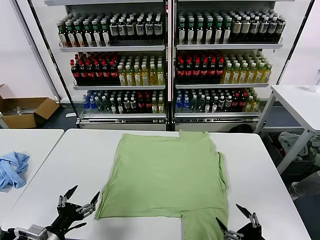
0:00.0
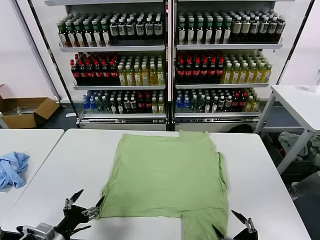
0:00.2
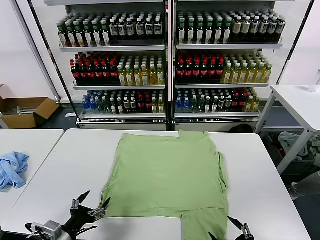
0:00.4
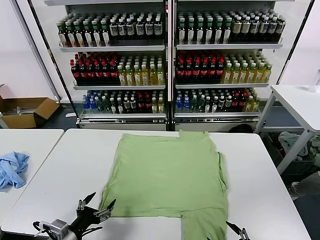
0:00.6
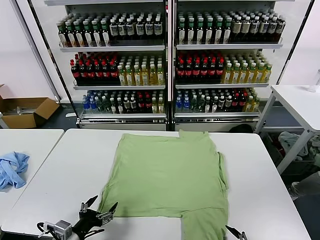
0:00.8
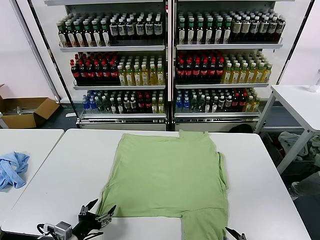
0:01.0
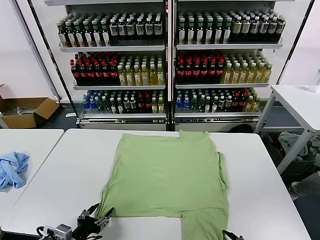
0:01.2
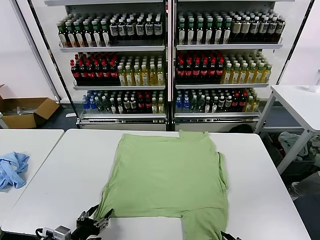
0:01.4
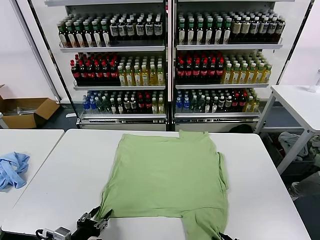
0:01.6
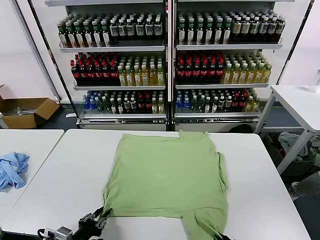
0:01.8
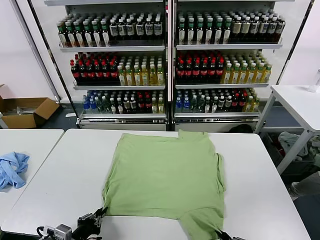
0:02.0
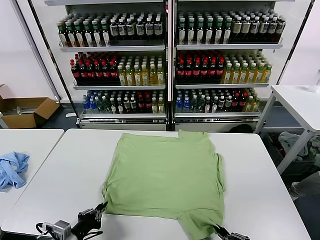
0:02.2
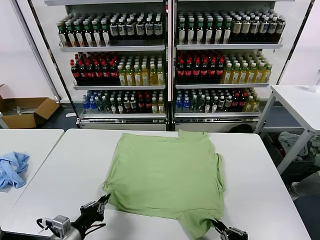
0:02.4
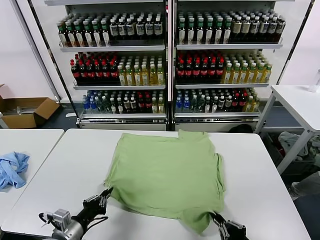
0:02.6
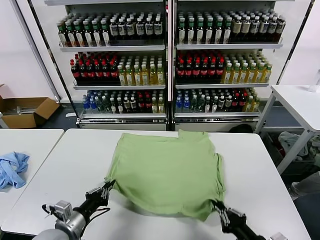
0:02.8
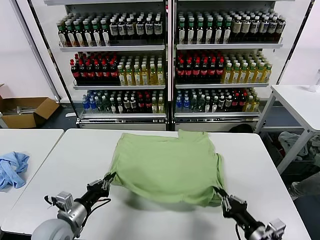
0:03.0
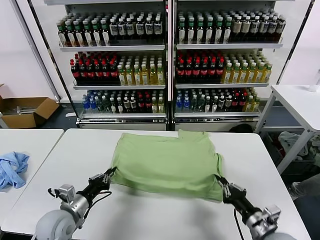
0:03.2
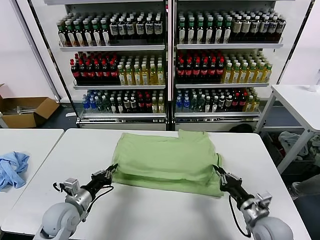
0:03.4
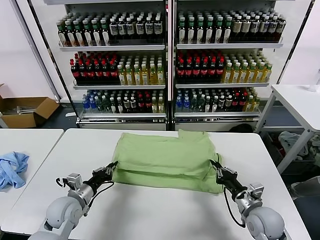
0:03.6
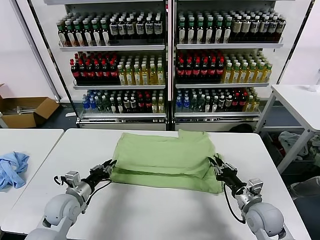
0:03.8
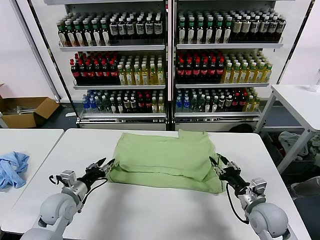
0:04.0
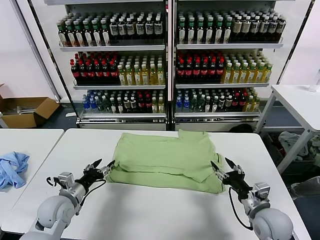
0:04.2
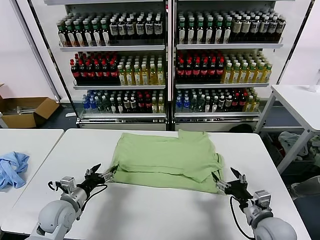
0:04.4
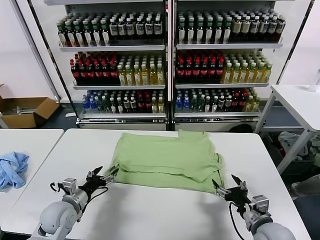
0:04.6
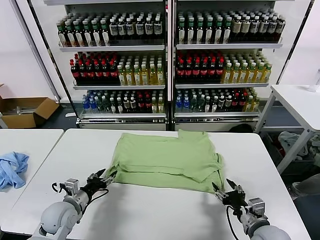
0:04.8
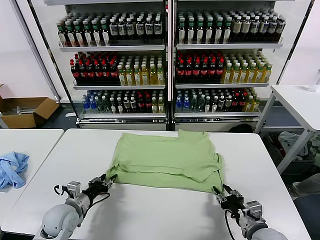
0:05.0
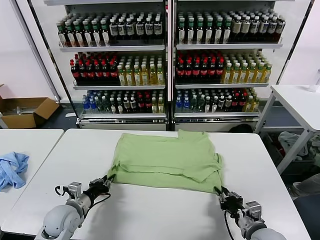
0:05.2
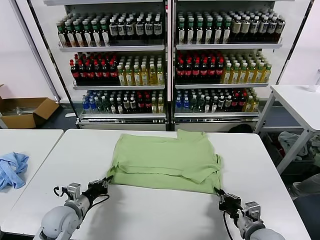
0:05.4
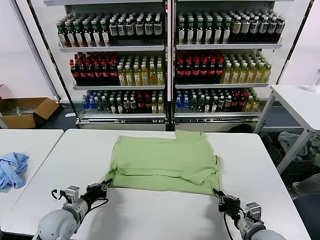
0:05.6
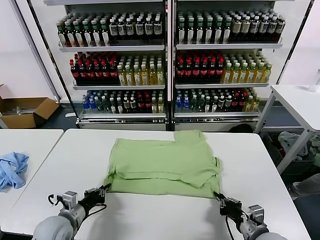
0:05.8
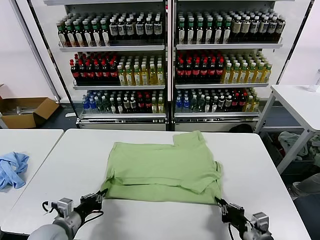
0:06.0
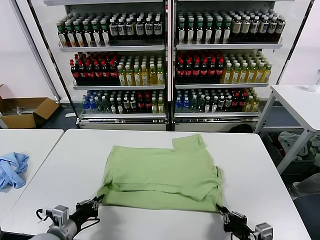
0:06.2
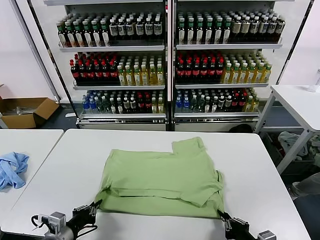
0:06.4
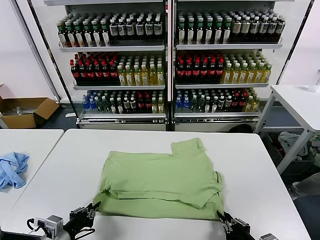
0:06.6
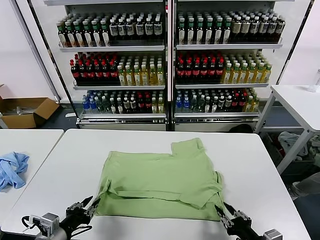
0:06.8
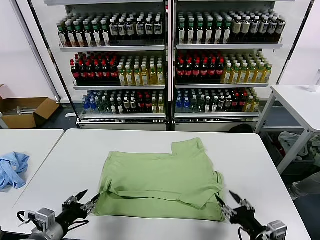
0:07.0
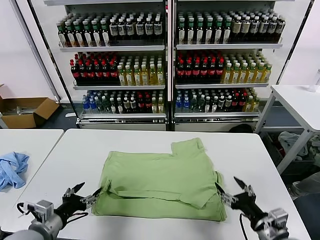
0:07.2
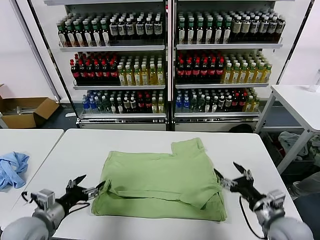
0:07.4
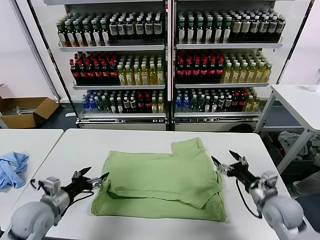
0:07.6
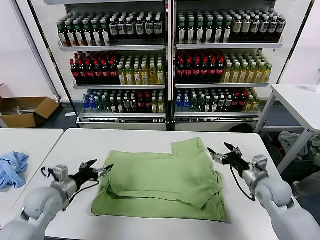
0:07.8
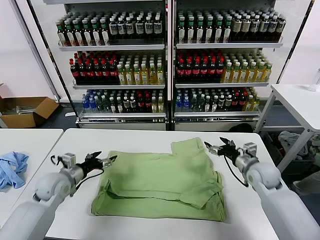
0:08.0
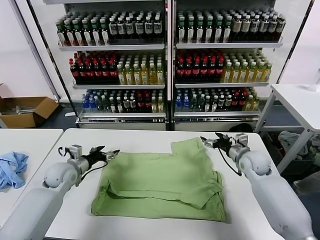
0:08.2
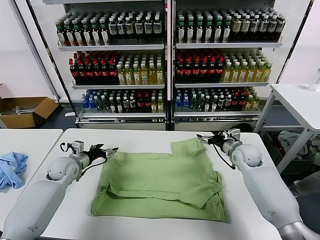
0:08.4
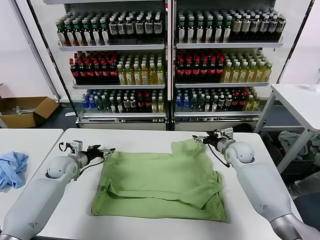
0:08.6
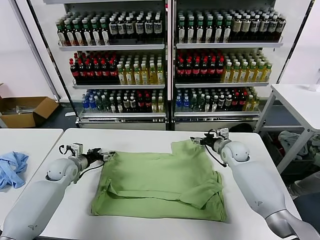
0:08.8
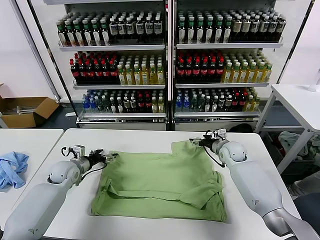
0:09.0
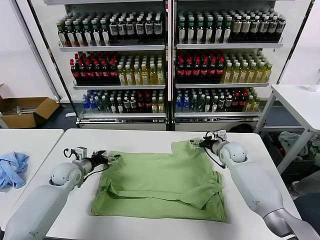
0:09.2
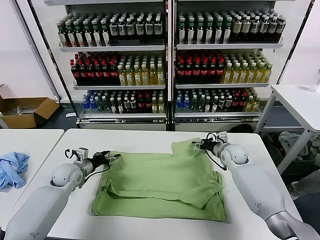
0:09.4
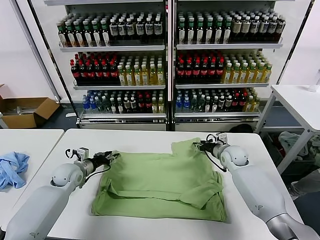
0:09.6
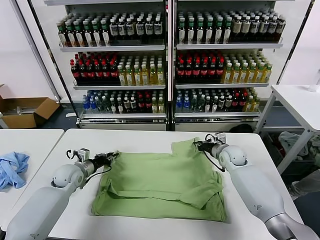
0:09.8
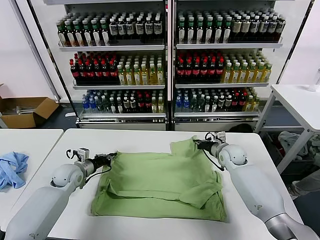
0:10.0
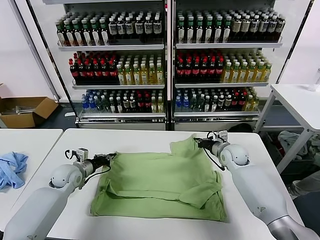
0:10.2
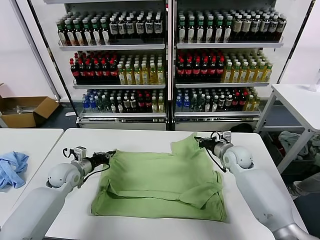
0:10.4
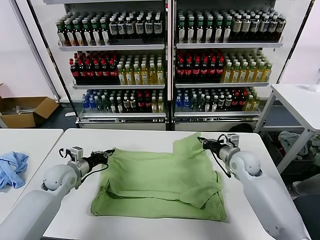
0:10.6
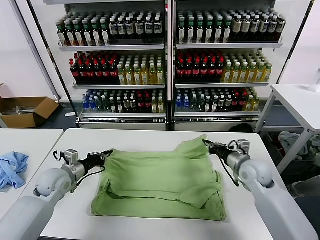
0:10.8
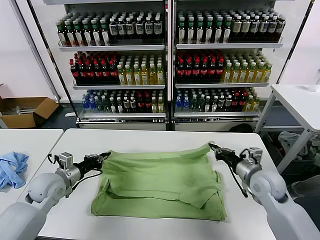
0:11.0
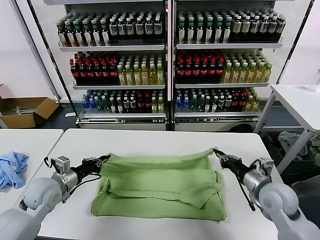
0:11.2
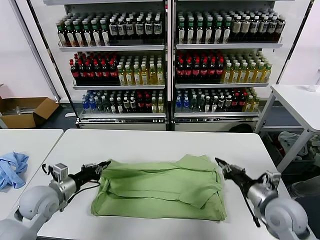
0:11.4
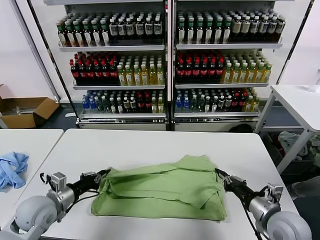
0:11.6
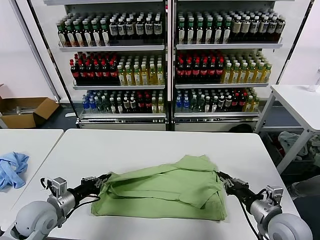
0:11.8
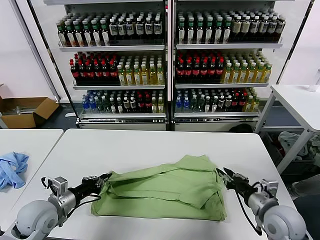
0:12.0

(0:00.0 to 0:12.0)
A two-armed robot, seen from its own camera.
Task of the whole recording: fold and organize the clothes.
Step, 0:00.0 - 0:02.0: use both grippers simultaneously to clamp the lower edge of the clothing fabric.
Step, 0:02.2 - 0:03.8: use both grippers to drag the lower edge of the fabric forward and fold it over the upper edge.
Step, 0:04.0 - 0:06.6: Drag the clothes downward with both gripper.
Step, 0:06.8 - 0:10.0: use both grippers simultaneously to clamp the upper edge of the clothing fabric.
0:01.6 - 0:03.0: The grippers both shift forward by approximately 10 cm. The left gripper closes its fingers.
0:03.0 - 0:04.4: The right gripper opens up. Meanwhile the left gripper moves forward, about 5 cm, and opens.
0:04.4 - 0:06.0: The two grippers go about 5 cm backward. The left gripper closes its fingers. The right gripper closes up.
0:06.0 - 0:07.6: The left gripper heads forward, covering approximately 5 cm, and opens up. The right gripper goes some 15 cm forward, and opens.
0:07.6 - 0:09.0: Both grippers move forward, some 20 cm.
0:09.0 - 0:10.4: The left gripper closes its fingers, while the right gripper travels backward by about 5 cm, and closes.
0:10.4 - 0:12.0: Both grippers move backward, approximately 20 cm. The right gripper opens up.

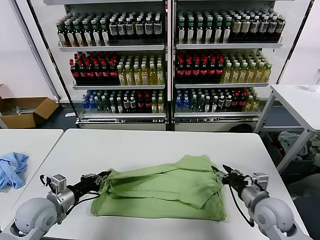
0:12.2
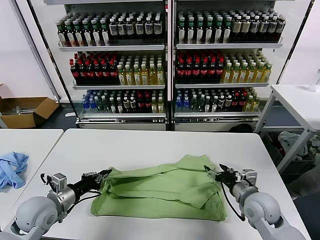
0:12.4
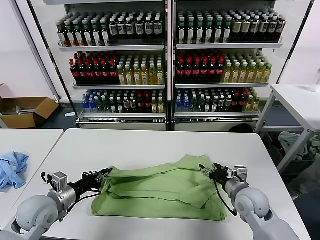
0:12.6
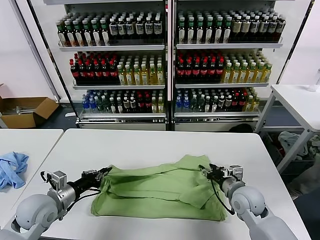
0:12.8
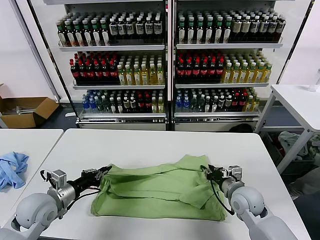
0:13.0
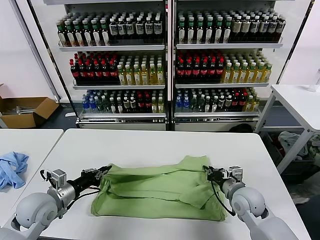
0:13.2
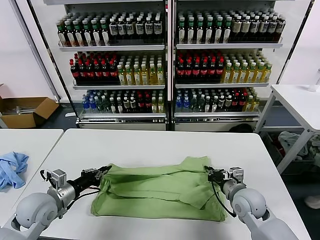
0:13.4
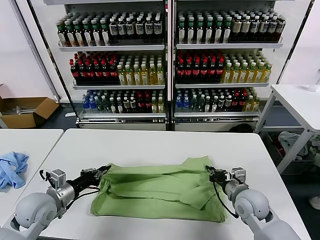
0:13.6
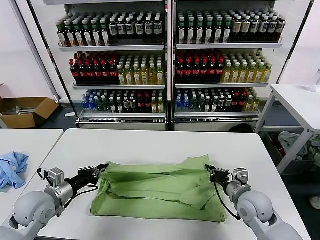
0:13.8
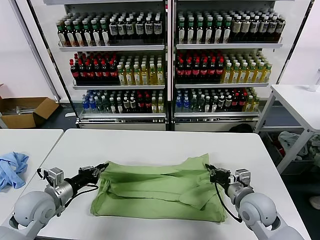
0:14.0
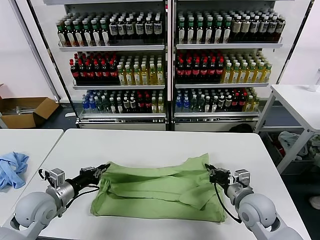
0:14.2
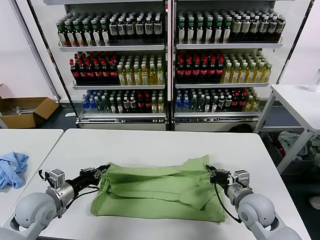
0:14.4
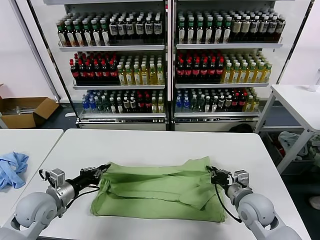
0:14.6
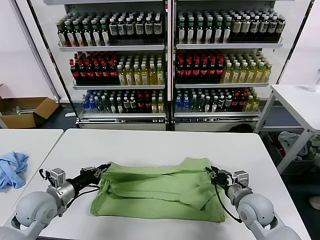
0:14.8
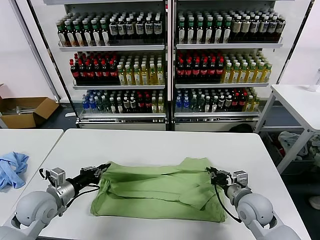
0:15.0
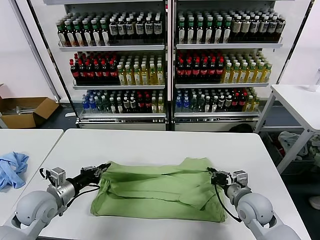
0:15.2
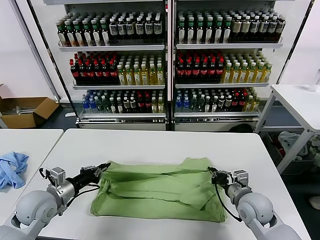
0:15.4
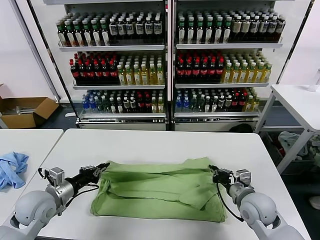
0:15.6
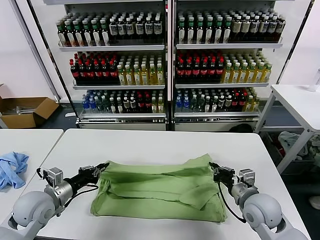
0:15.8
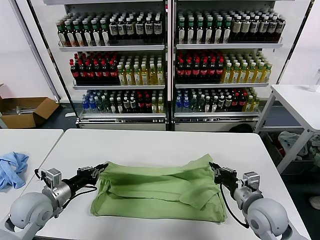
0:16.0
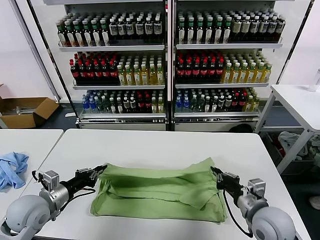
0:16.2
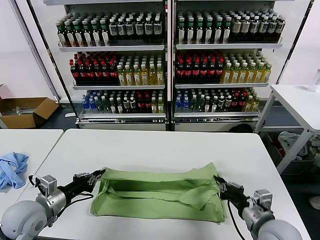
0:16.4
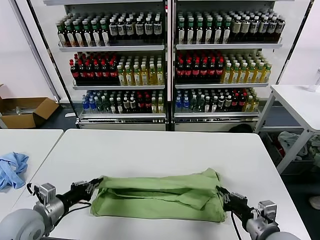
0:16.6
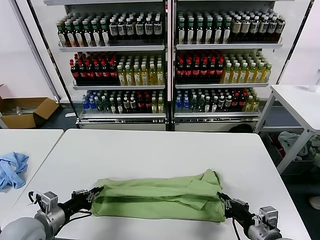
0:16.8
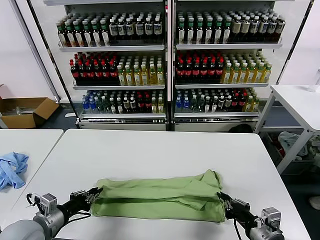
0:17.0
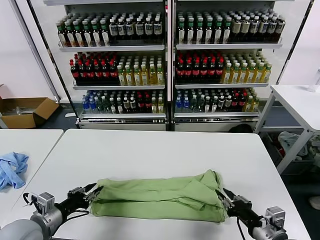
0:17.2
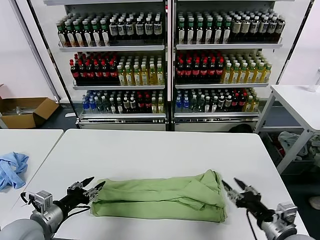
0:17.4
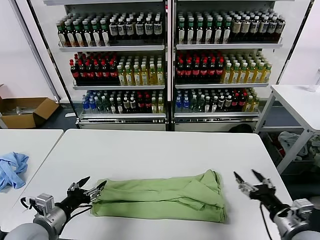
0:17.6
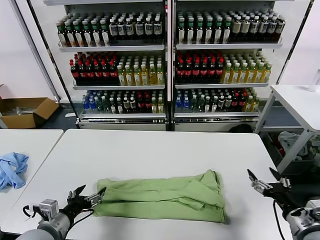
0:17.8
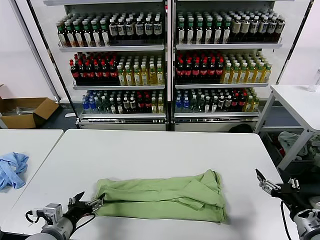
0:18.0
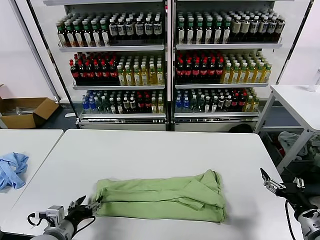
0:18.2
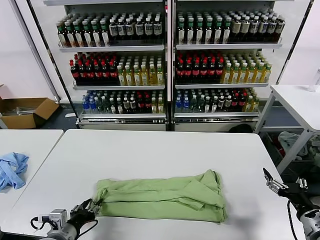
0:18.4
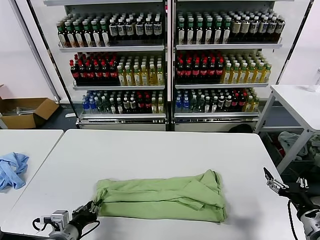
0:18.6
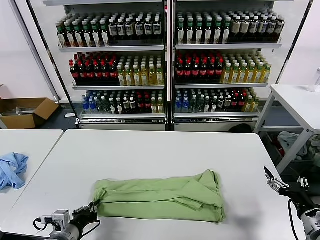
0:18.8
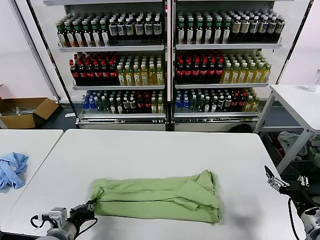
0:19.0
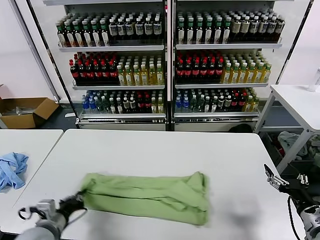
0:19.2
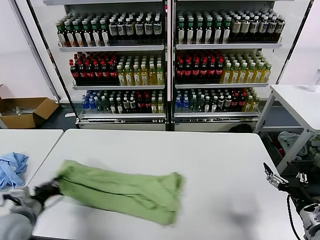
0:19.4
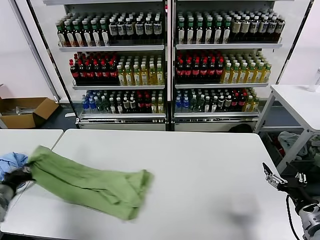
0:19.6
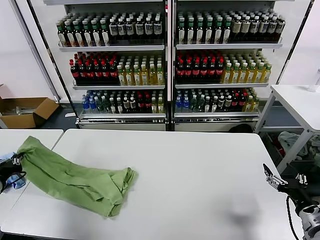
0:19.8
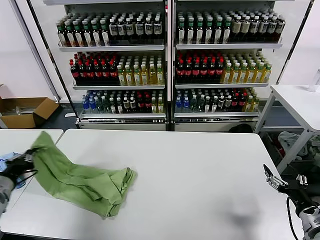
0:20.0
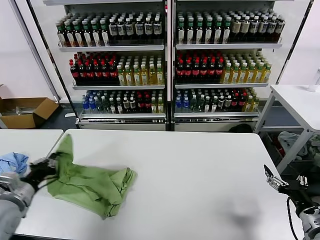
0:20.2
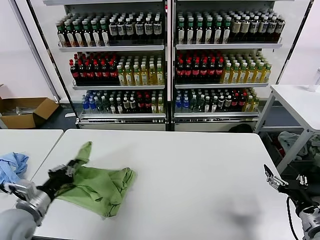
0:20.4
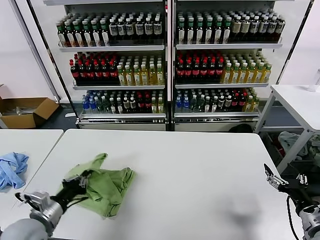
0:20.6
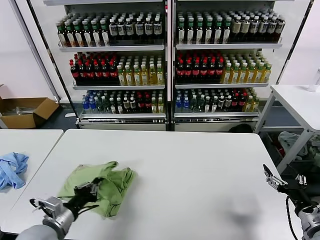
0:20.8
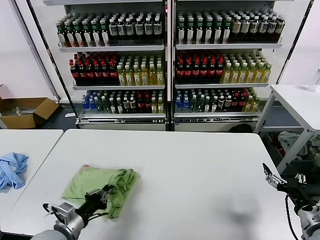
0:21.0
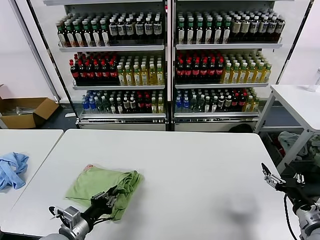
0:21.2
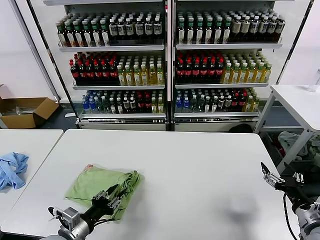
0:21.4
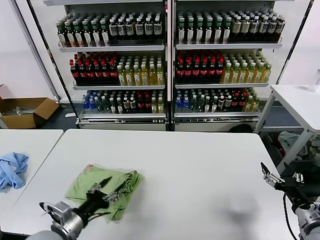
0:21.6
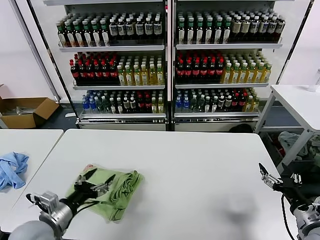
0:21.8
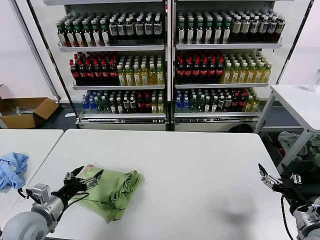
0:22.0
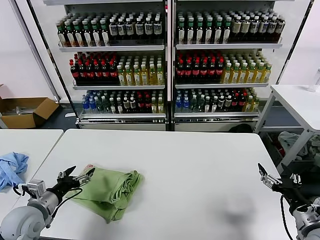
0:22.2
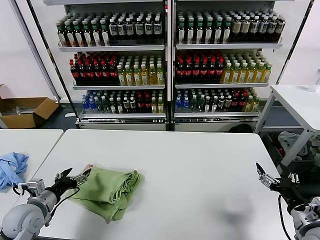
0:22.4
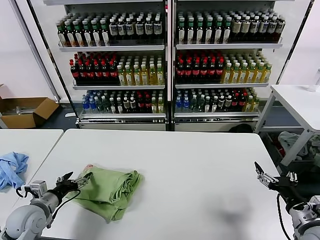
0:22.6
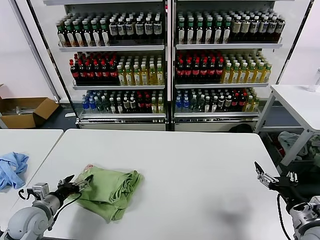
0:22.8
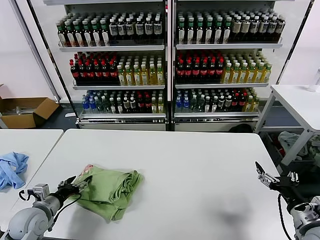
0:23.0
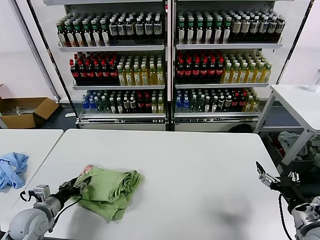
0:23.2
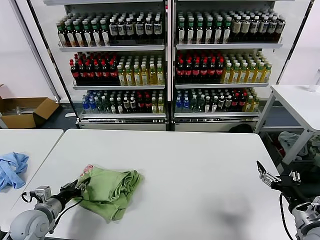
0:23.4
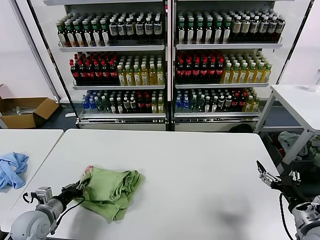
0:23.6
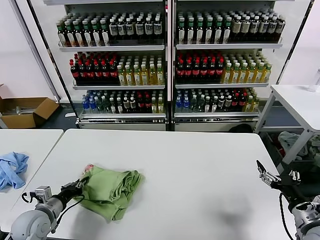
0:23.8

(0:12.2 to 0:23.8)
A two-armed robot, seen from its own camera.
Task of the whole recording: fold and organize the clothes.
Step, 0:12.2 - 0:17.0: use both grippers to drag the upper edge of the fabric backward and fold it over the lower edge.
Step, 0:17.2 - 0:18.8: use the left gripper to clamp the left edge of the fabric.
Step, 0:19.0 - 0:21.4: use the left gripper to drag the left edge of the fabric to the left and folds it over the right edge.
0:12.2 - 0:13.6: The right gripper closes.
0:13.6 - 0:15.0: The grippers make only small movements.
0:15.0 - 0:16.6: The right gripper heads backward, covering some 15 cm. Meanwhile the left gripper shifts approximately 5 cm backward.
0:16.6 - 0:18.0: The right gripper shifts some 10 cm to the right, and opens. The left gripper is displaced to the right and backward by roughly 5 cm, and opens.
0:18.0 - 0:19.4: The left gripper travels to the left by some 10 cm, and closes its fingers.
0:19.4 - 0:21.0: The left gripper moves to the right, approximately 10 cm.
0:21.0 - 0:22.4: The left gripper goes about 10 cm to the left and forward, and opens.
0:22.4 - 0:23.8: The left gripper closes its fingers.
